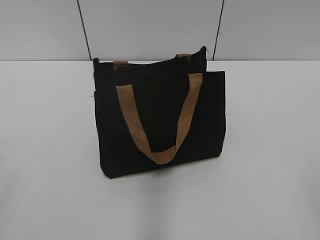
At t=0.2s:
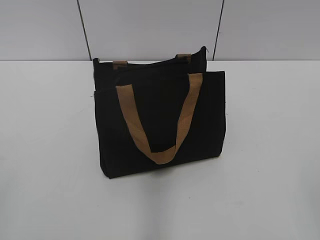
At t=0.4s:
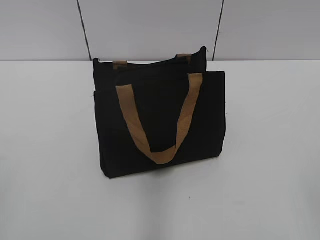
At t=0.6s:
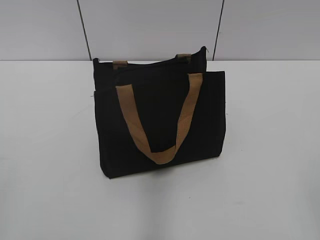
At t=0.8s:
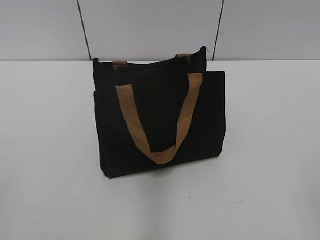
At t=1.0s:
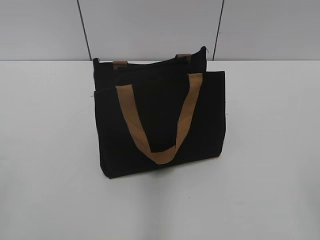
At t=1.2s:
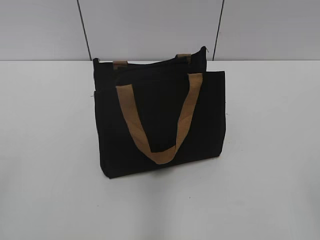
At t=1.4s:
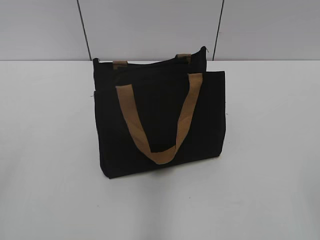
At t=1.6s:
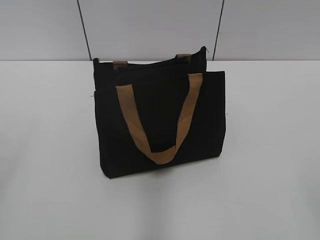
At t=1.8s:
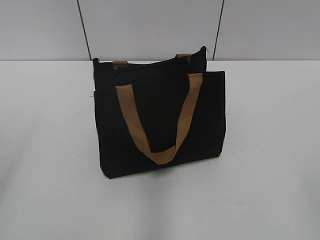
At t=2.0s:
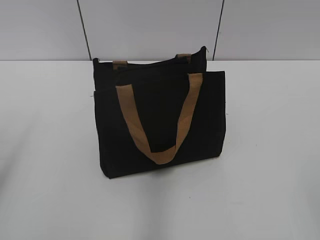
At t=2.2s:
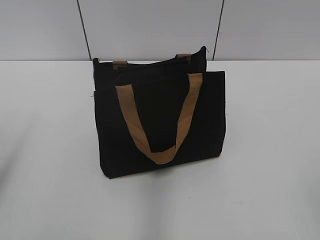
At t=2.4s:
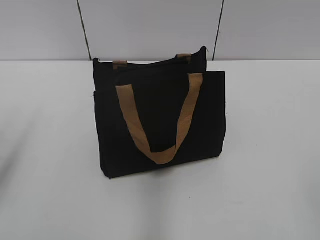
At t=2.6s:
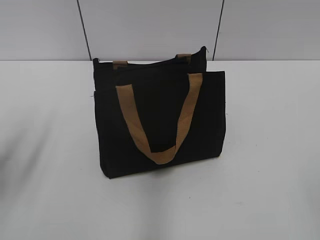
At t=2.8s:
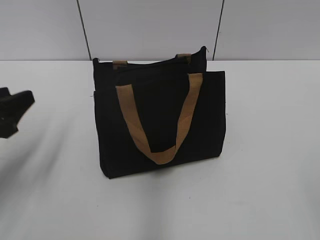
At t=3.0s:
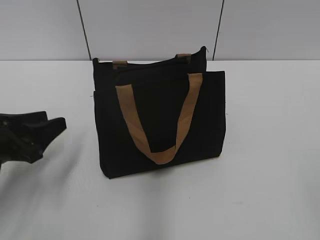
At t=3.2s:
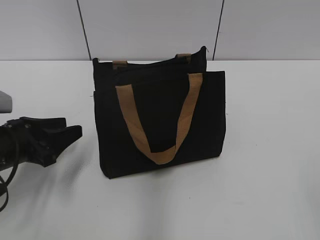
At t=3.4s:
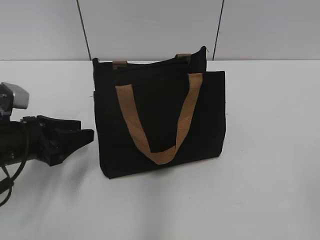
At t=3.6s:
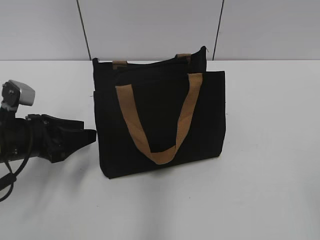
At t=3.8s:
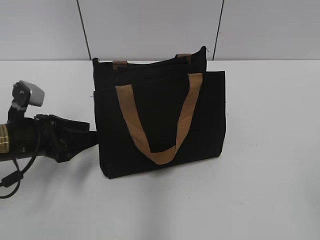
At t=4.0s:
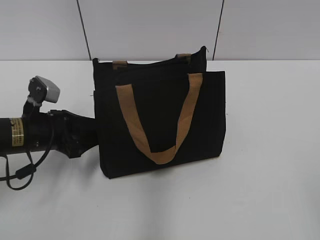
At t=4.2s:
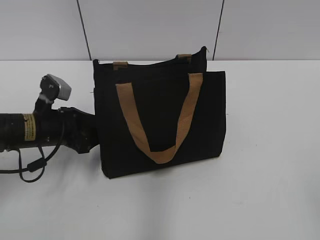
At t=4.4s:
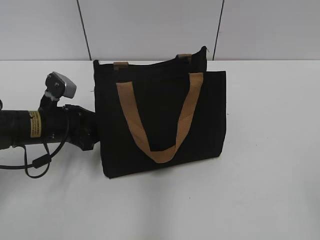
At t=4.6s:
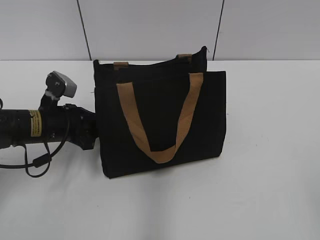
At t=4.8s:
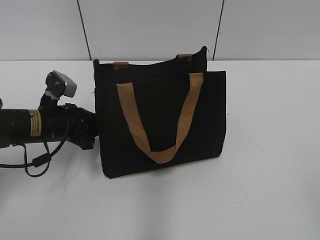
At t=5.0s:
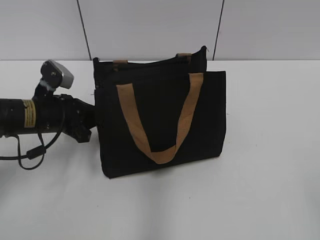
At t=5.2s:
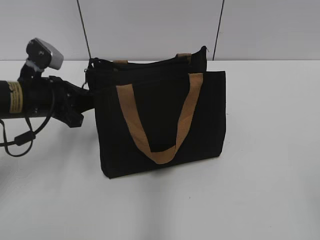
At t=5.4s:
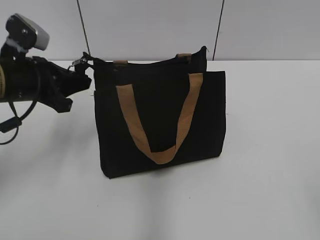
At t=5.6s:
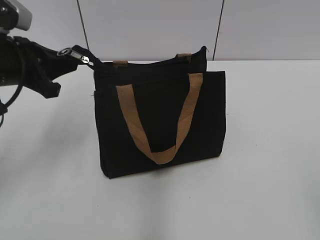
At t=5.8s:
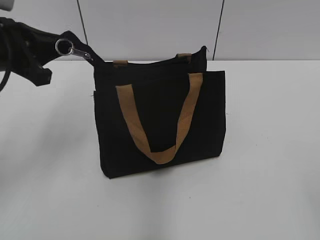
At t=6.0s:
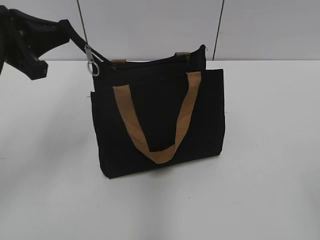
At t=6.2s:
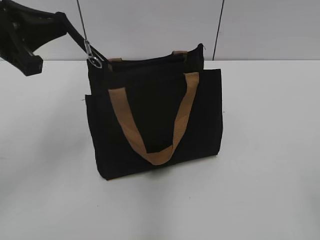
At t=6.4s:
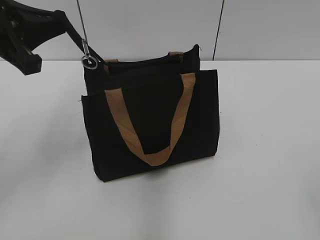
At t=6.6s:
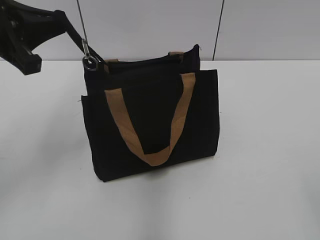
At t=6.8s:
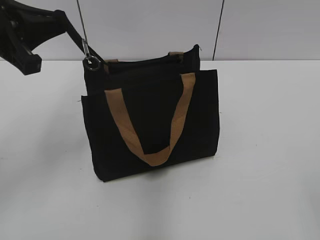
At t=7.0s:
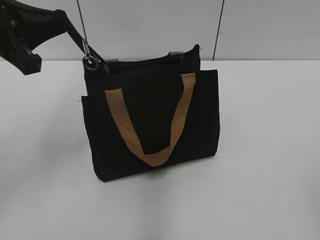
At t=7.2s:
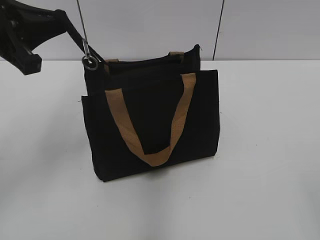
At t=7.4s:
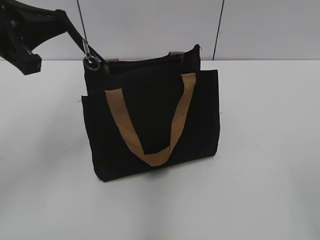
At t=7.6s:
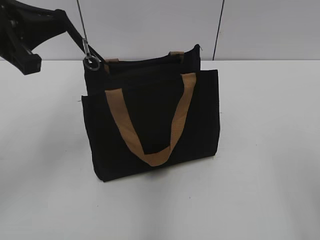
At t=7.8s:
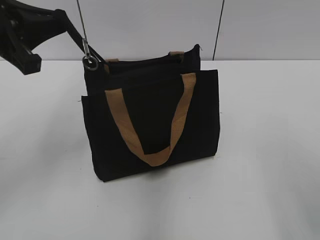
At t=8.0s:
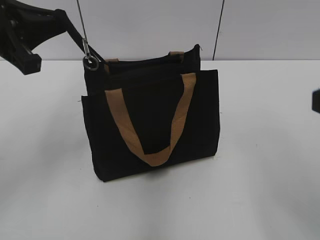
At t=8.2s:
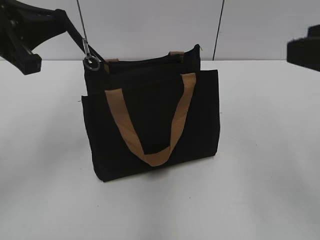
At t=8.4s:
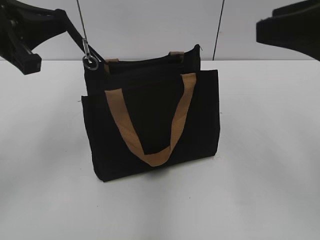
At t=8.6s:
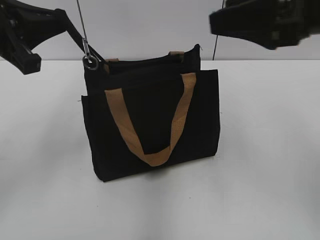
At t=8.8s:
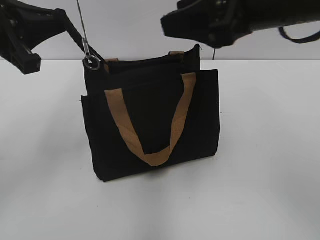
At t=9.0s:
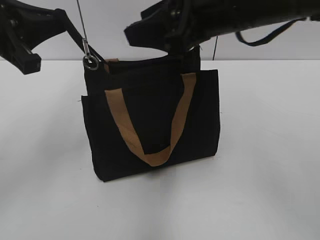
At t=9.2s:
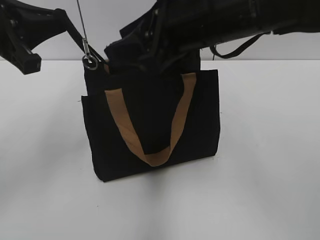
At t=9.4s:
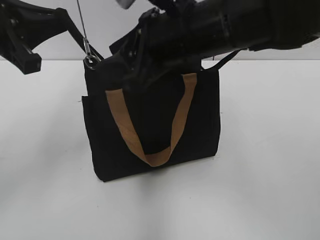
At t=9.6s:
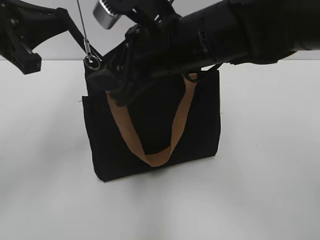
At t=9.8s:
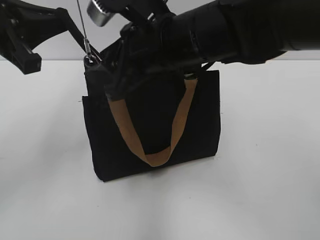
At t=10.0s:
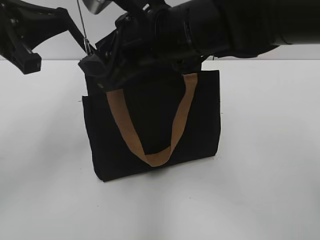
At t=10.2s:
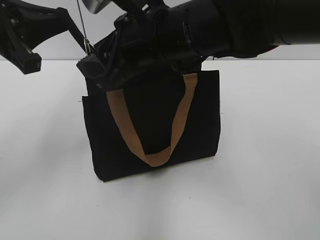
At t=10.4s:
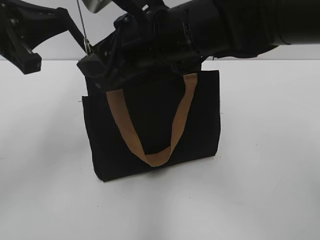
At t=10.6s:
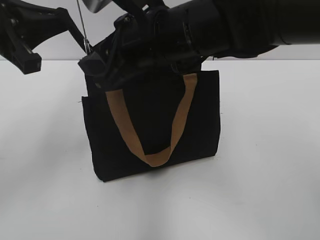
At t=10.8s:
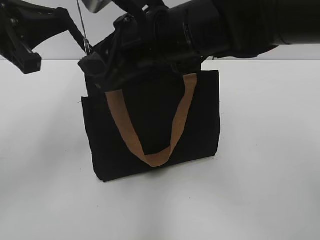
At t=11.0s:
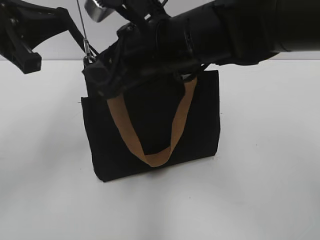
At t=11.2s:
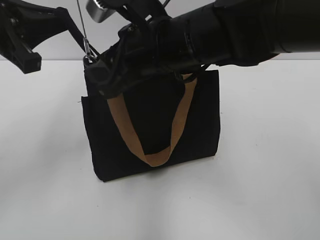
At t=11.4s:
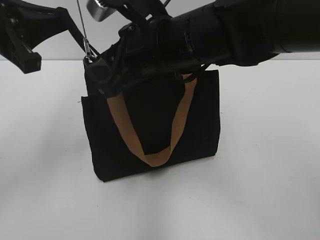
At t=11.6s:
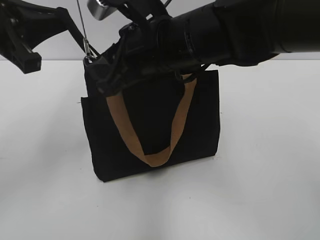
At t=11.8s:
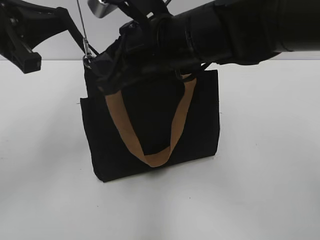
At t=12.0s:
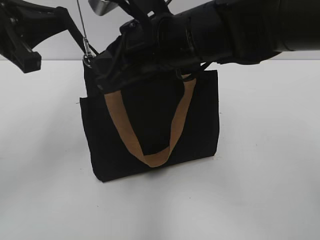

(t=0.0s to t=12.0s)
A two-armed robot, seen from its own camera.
t=1.6s - t=3.0s: The left gripper moves downward and forward, some 25 cm.
t=3.0s - t=4.4s: The left gripper heads forward and to the right, covering approximately 10 cm.
t=4.4s - t=6.0s: The left gripper is displaced upward by approximately 20 cm, and closes.
t=6.0s - t=7.6s: The right gripper ends up about 5 cm from where it was.
t=7.6s - t=9.0s: The right gripper moves forward and to the left, roughly 30 cm.
t=9.0s - t=10.4s: The right gripper shifts roughly 10 cm to the left and downward.
t=10.4s - t=12.0s: The right gripper closes up.

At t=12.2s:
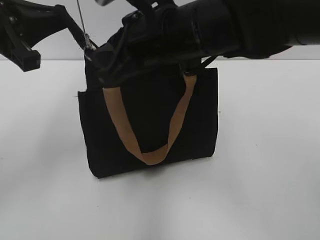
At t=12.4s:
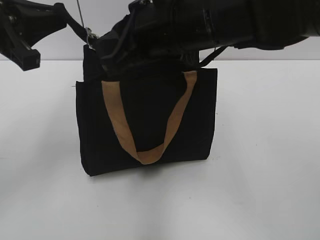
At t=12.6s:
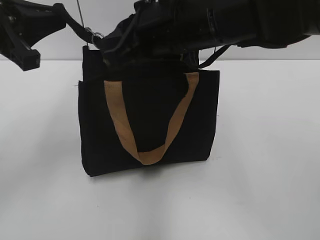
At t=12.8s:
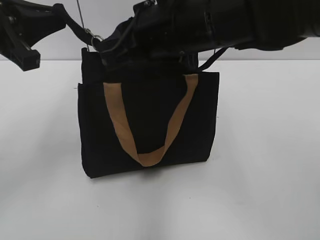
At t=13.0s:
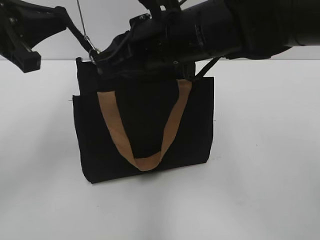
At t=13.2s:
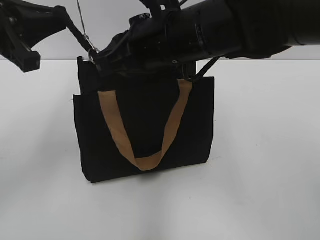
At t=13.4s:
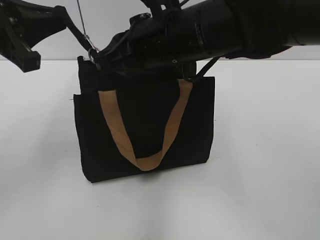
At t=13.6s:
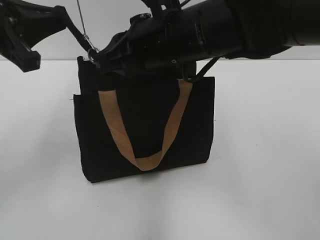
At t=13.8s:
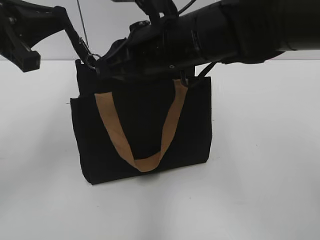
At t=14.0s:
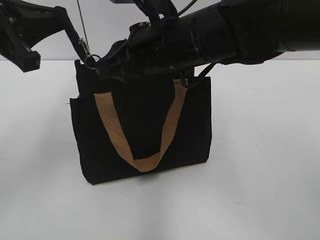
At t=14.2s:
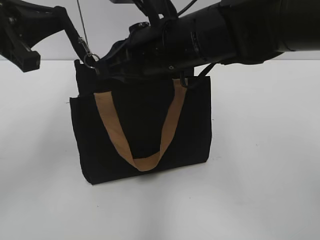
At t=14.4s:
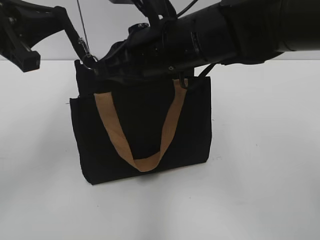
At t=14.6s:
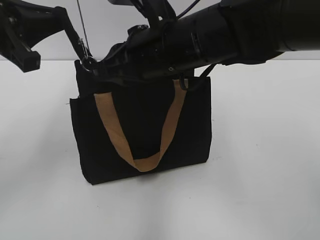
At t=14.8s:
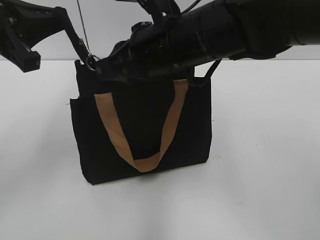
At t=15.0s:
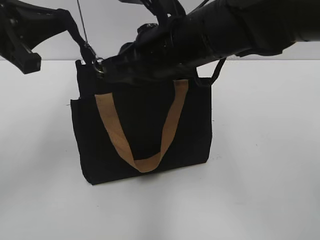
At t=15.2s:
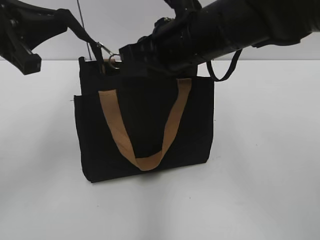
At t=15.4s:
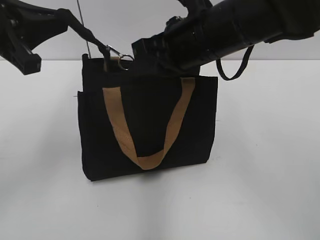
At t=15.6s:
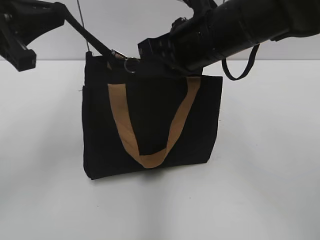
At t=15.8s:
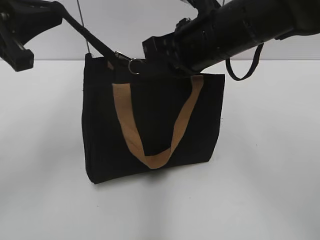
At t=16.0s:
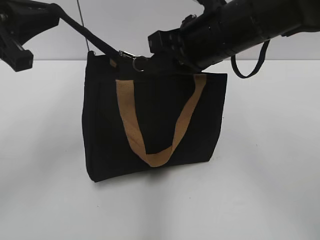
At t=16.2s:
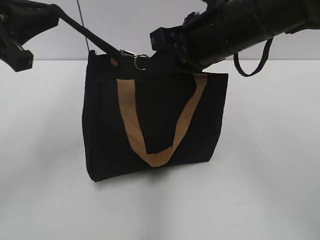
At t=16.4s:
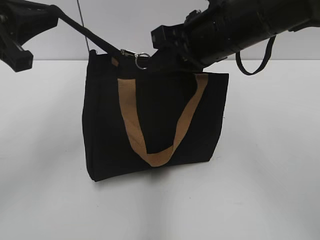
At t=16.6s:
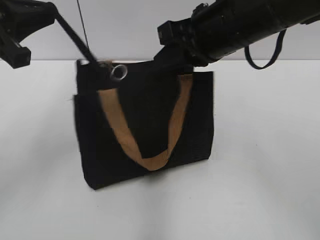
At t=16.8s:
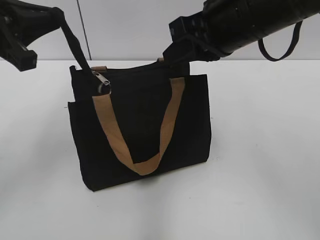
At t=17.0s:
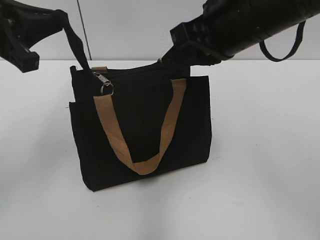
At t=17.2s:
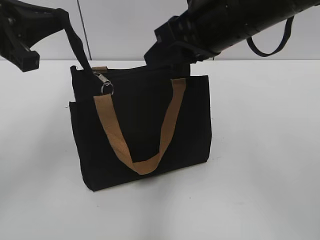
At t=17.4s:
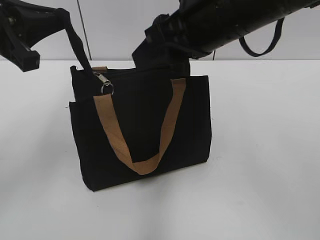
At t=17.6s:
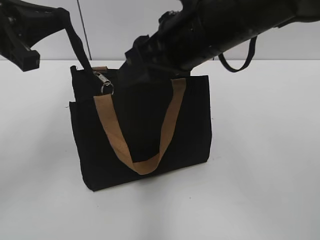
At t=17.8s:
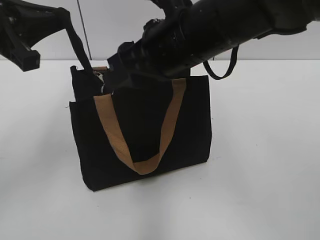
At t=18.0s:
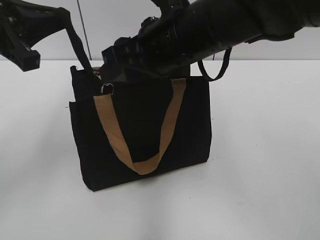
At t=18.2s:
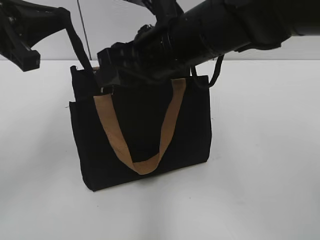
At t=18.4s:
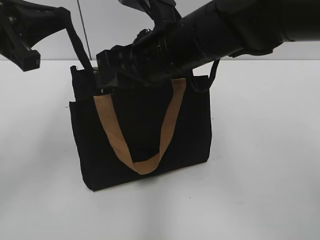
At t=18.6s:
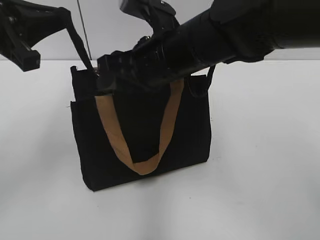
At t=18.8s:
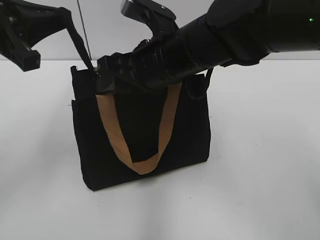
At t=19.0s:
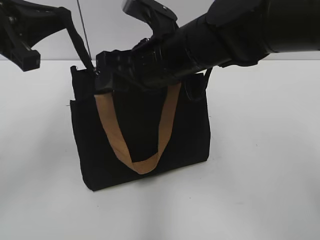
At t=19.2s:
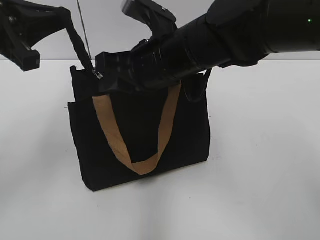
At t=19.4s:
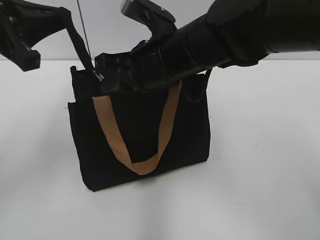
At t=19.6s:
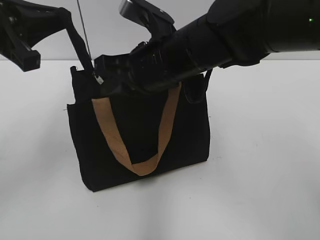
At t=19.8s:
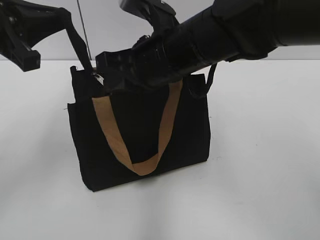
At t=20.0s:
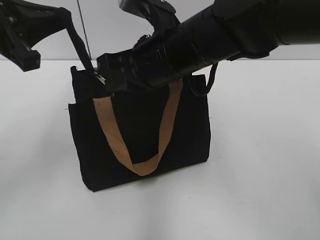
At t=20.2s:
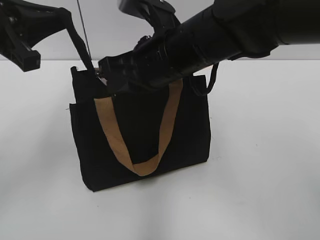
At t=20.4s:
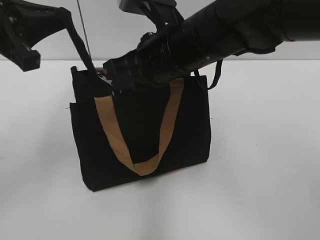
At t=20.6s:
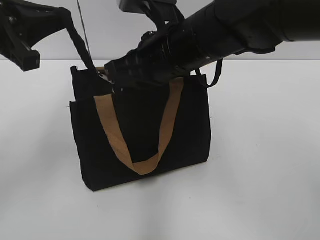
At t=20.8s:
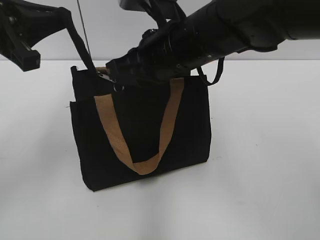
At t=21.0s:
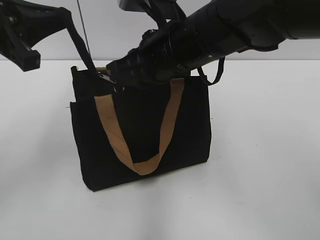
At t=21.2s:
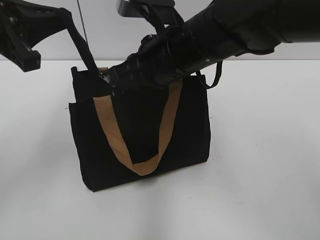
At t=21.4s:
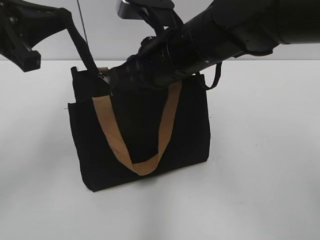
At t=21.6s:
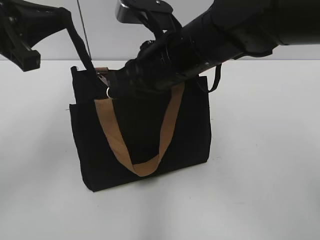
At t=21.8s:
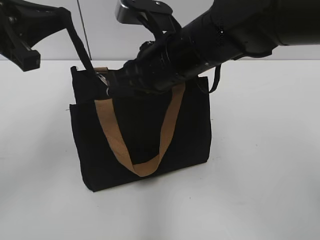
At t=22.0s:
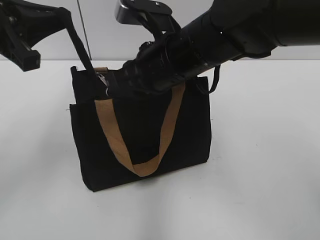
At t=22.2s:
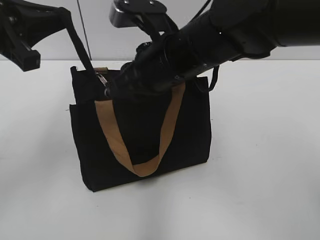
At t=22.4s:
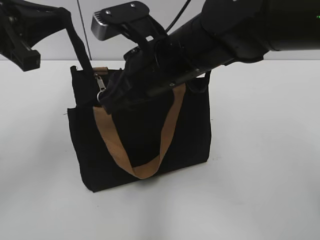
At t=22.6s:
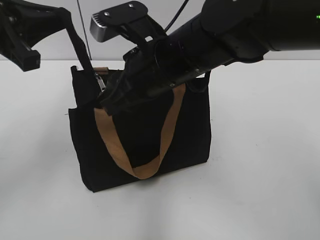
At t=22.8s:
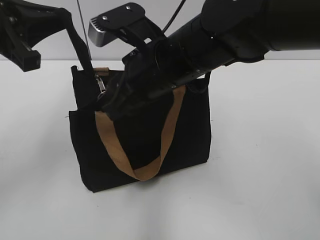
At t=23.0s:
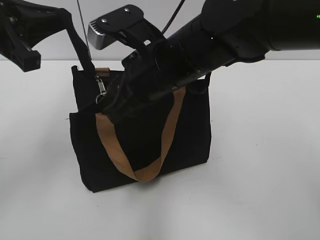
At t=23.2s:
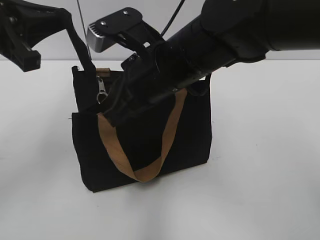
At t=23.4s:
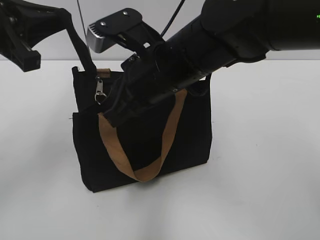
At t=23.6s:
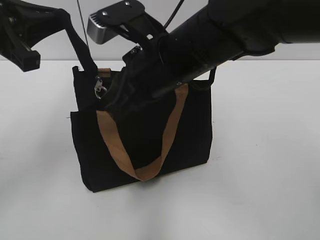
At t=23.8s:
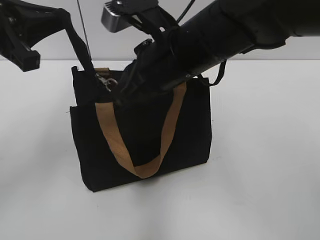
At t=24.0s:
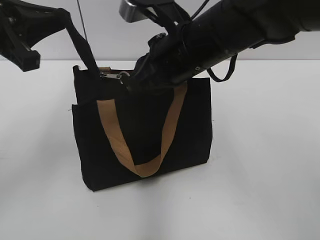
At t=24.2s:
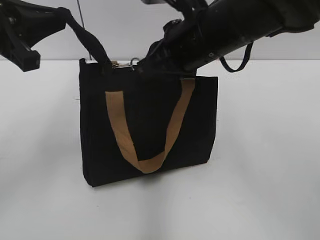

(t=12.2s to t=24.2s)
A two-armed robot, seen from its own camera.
t=12.2s - t=13.8s: The grippers move only a little.
t=13.8s - t=15.2s: There are only small adjustments of the grippers.
t=15.2s - t=16.6s: The grippers stay close to where they were, moving slightly.
t=16.6s - t=18.2s: The right gripper travels to the left by some 5 cm, and opens.
t=18.2s - t=19.8s: The right gripper closes.
t=19.8s - t=21.2s: The grippers move only a little.
t=21.2s - t=22.6s: The right gripper opens its fingers.
t=22.6s - t=24.2s: The right gripper moves to the right, about 5 cm, and closes its fingers.
